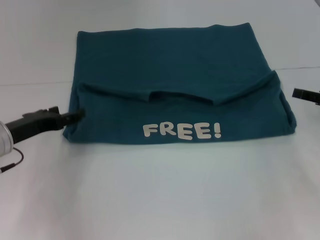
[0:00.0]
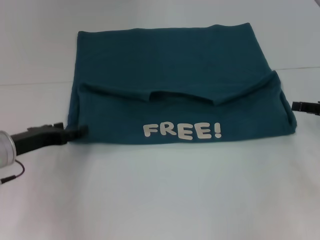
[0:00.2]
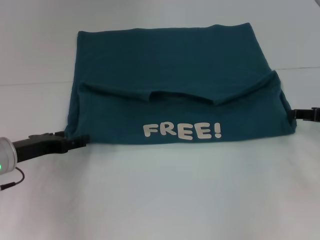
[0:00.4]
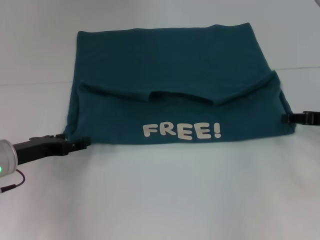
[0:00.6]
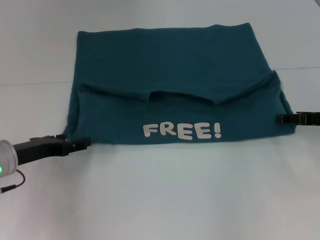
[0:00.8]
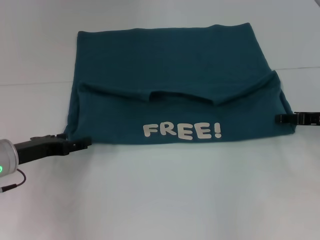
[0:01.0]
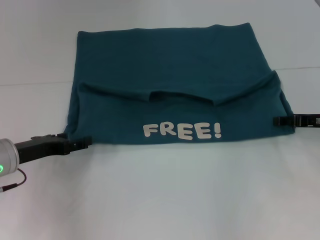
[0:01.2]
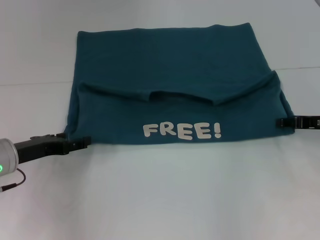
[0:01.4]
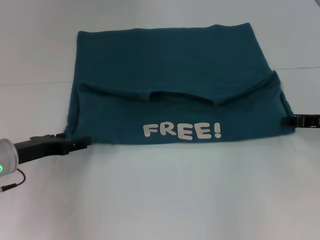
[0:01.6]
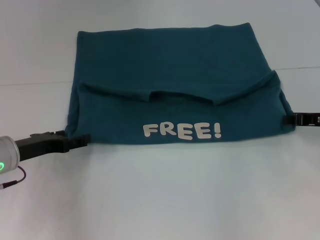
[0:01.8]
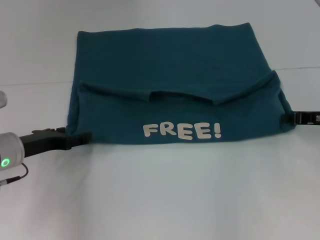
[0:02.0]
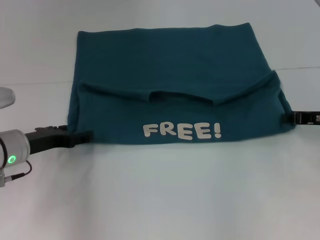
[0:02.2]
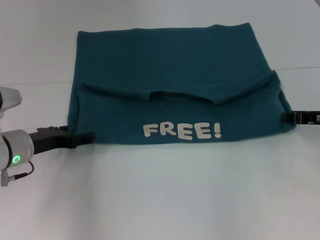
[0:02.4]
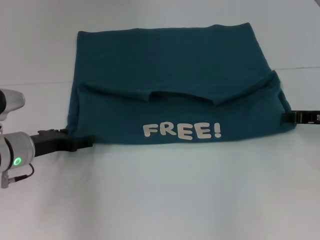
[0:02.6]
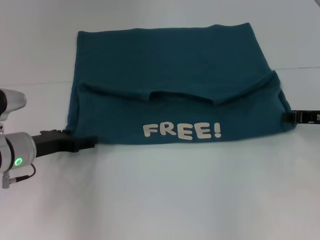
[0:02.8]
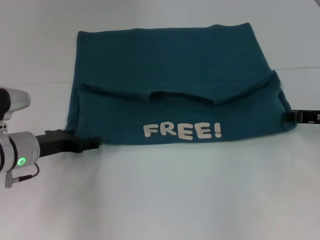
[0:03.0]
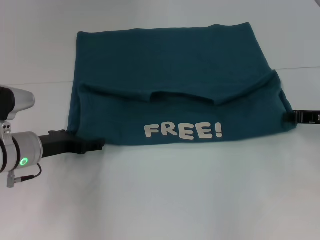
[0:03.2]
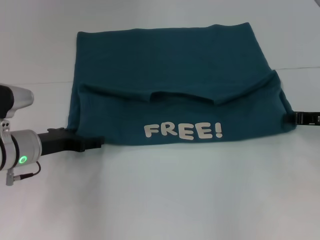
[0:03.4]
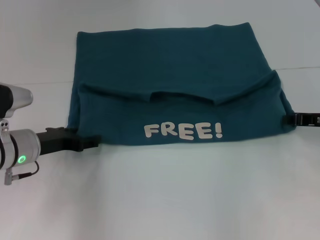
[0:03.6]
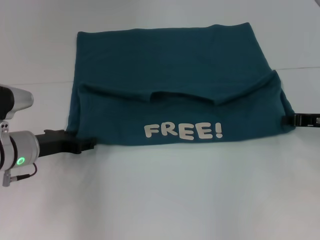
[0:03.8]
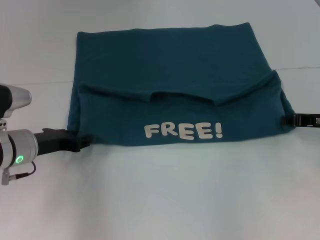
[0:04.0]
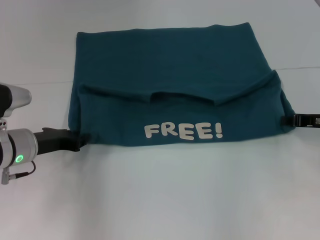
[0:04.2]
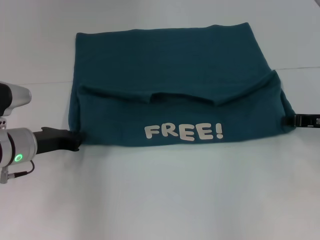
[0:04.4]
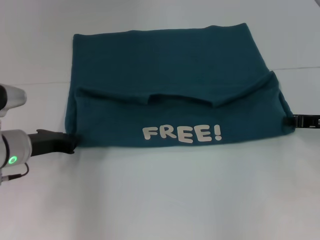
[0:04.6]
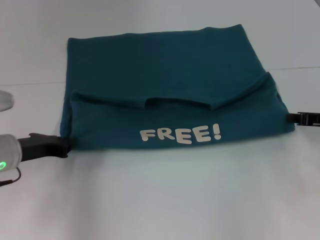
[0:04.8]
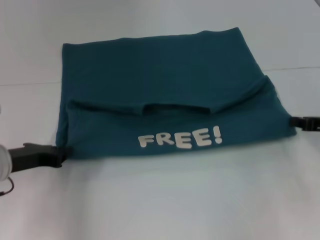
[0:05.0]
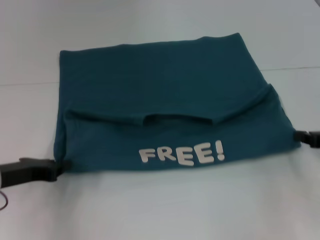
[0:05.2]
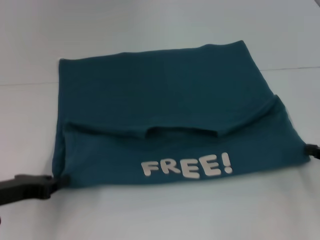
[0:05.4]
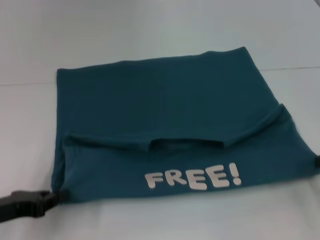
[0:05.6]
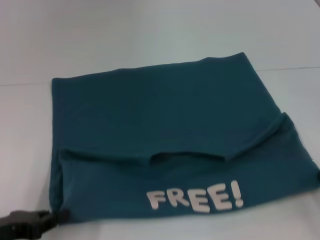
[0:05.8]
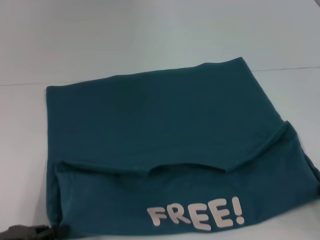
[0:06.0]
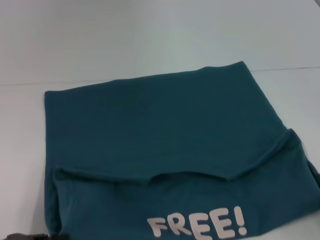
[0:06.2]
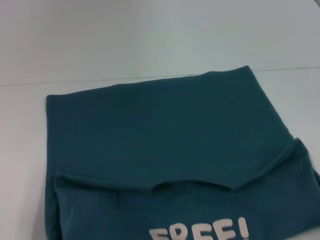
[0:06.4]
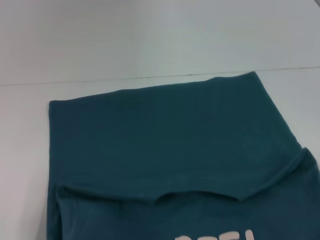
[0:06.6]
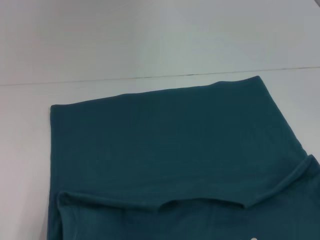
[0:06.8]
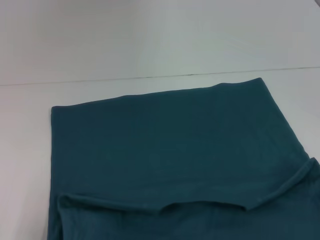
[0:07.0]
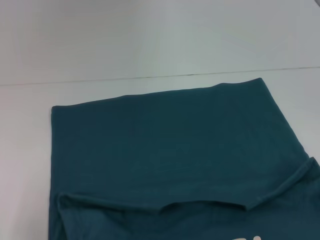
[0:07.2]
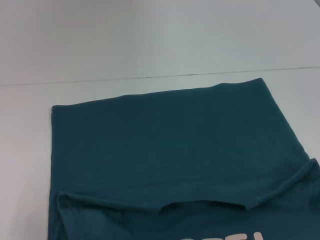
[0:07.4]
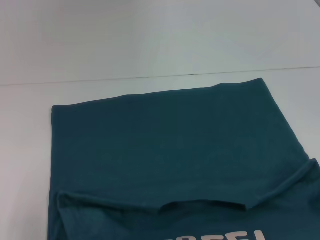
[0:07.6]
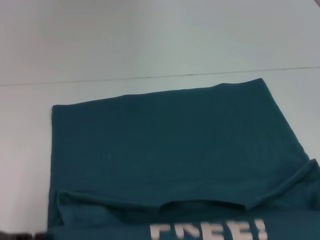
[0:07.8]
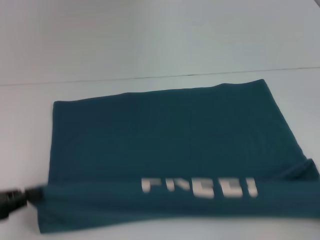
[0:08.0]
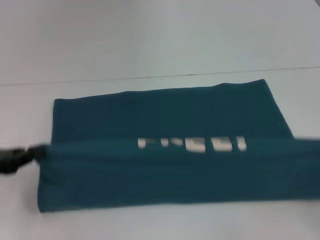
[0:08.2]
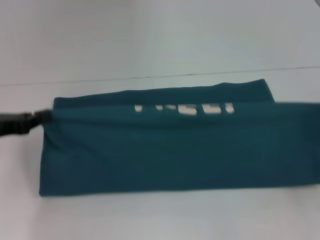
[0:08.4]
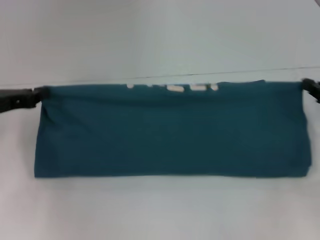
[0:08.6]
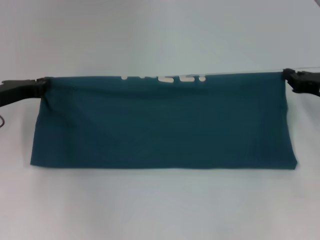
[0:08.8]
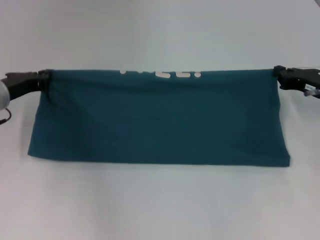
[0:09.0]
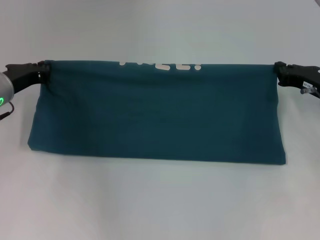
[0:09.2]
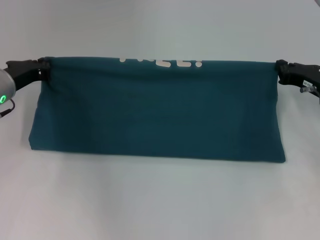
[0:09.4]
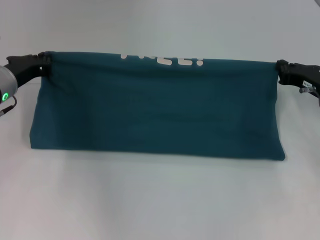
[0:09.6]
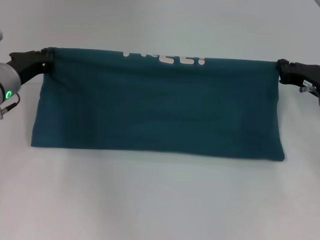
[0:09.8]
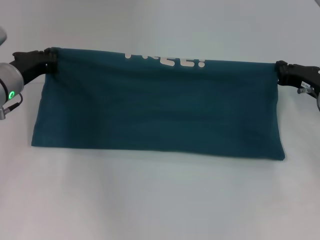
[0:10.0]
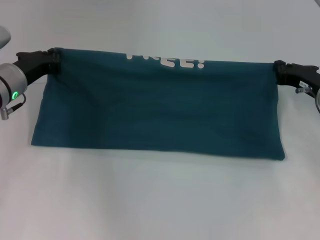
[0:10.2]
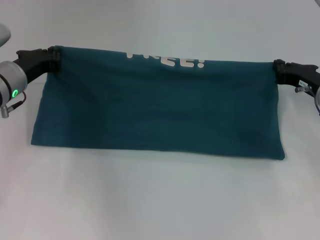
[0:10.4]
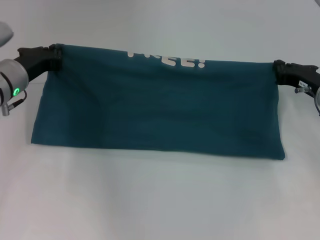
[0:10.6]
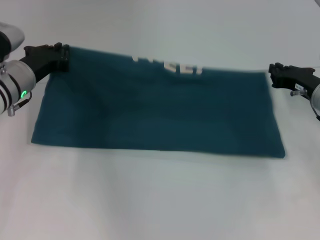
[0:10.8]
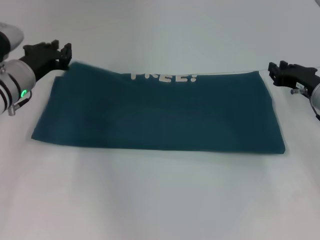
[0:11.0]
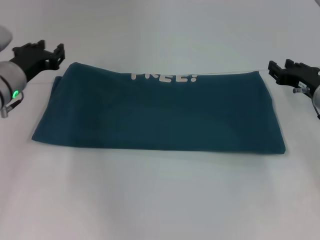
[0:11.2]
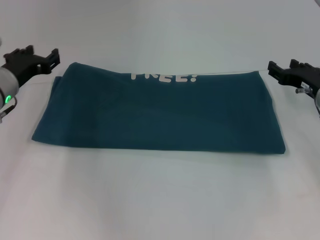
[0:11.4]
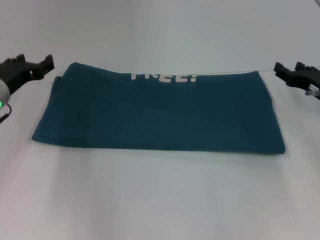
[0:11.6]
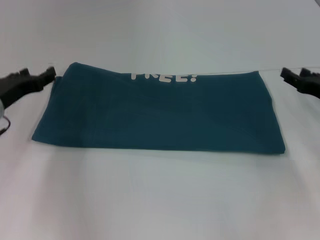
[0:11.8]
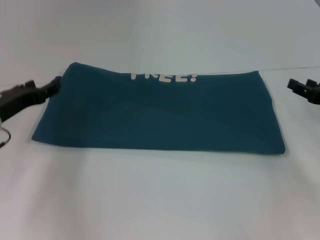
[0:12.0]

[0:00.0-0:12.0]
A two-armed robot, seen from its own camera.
Step, 0:00.0 to 0:05.6: Pull the clothes with your left hand.
Step, 0:00.0 to 0:05.6: Pull the clothes with your right hand.
Step, 0:05.8 to 0:11.0: Fold the clothes to the left.
Step, 0:05.8 to 0:11.0: Fold the clothes to the right.
0:00.0 to 0:01.6: There are only small adjustments of the grippers.
0:01.6 to 0:03.0: The right gripper closes its fingers.
0:03.0 to 0:04.4: The left gripper closes up.
0:04.4 to 0:06.0: The left gripper moves backward and to the left, roughly 20 cm. Meanwhile the right gripper heads backward, covering some 15 cm.
0:06.0 to 0:07.6: The right gripper travels backward by about 10 cm.
0:07.6 to 0:09.0: Both grippers travel together forward, roughly 25 cm.
0:09.0 to 0:10.4: The grippers move only a little.
0:10.4 to 0:12.0: The left gripper heads backward, covering roughly 5 cm, and opens up; the right gripper goes approximately 10 cm to the right and backward, and opens up.

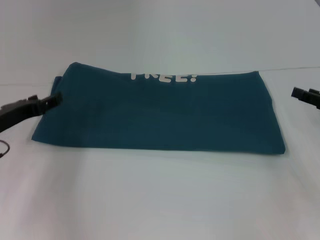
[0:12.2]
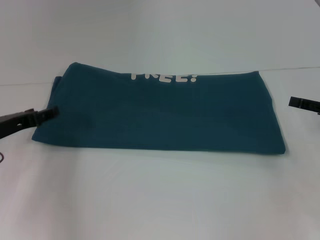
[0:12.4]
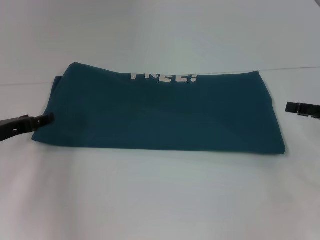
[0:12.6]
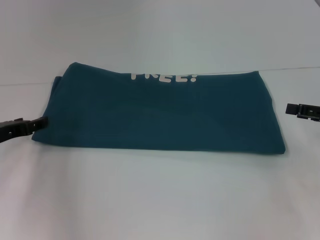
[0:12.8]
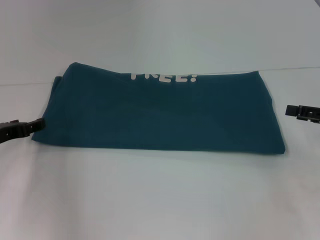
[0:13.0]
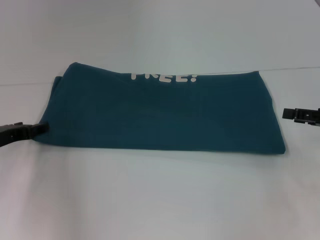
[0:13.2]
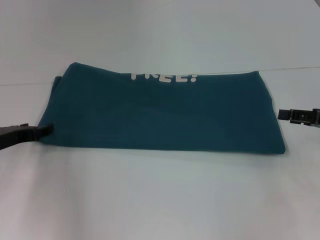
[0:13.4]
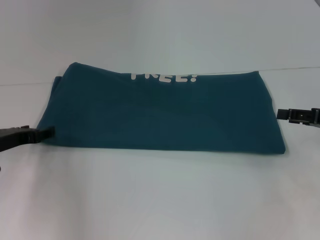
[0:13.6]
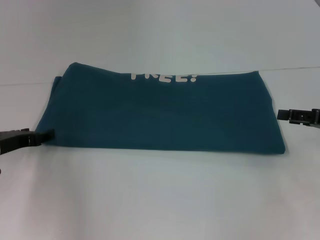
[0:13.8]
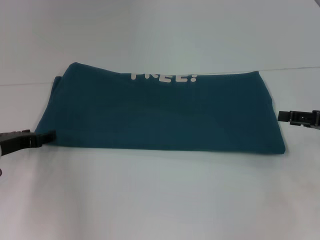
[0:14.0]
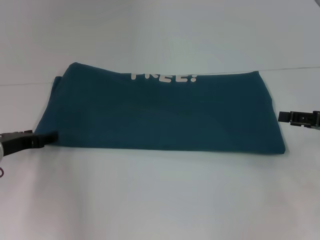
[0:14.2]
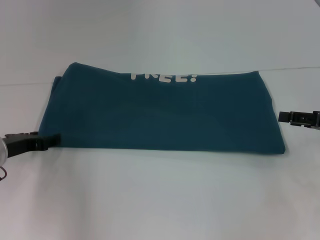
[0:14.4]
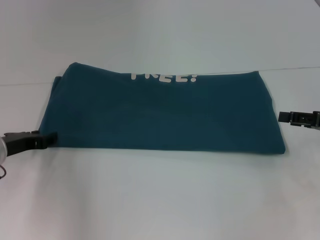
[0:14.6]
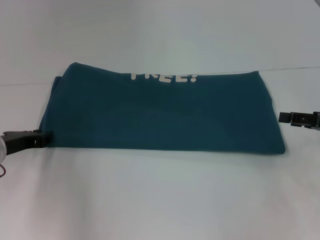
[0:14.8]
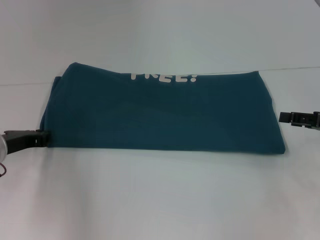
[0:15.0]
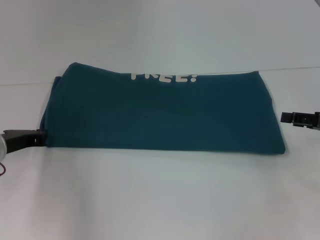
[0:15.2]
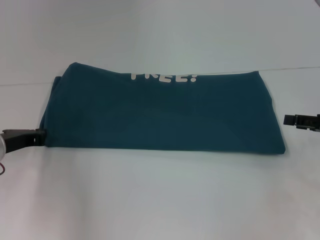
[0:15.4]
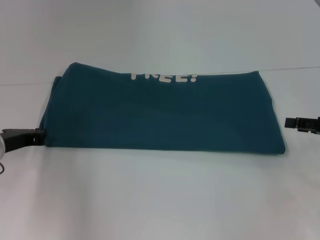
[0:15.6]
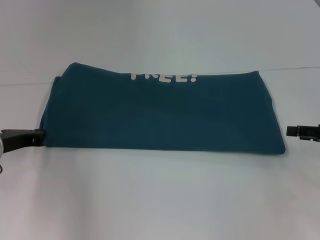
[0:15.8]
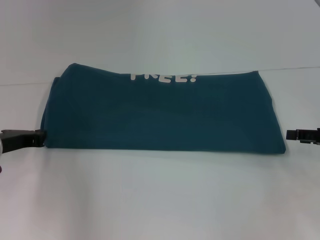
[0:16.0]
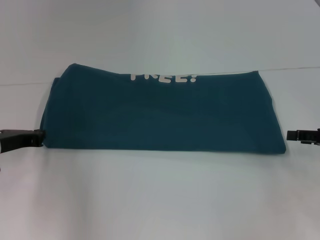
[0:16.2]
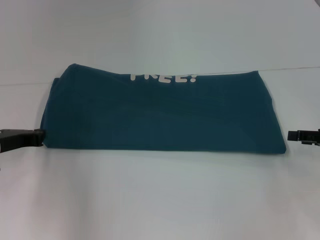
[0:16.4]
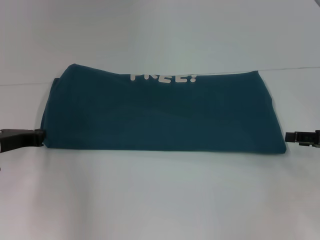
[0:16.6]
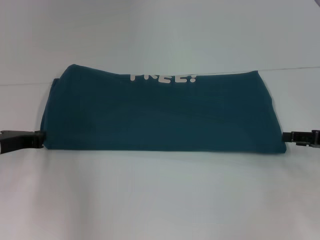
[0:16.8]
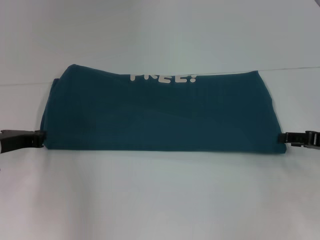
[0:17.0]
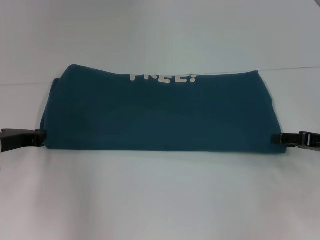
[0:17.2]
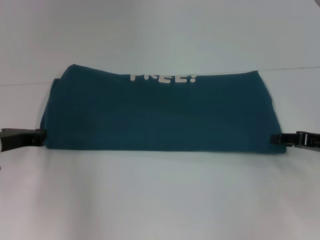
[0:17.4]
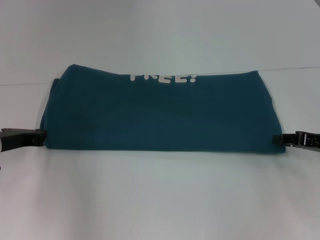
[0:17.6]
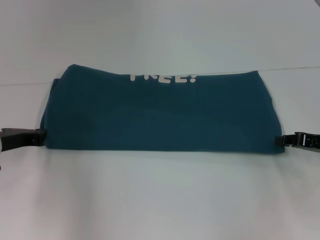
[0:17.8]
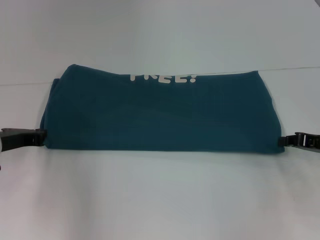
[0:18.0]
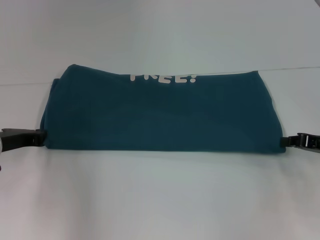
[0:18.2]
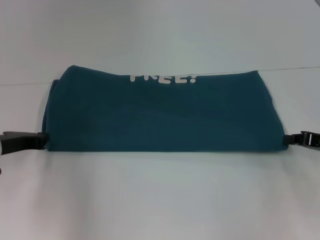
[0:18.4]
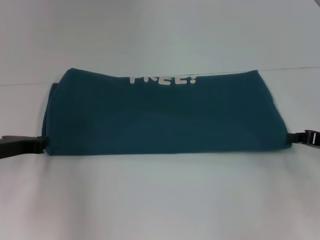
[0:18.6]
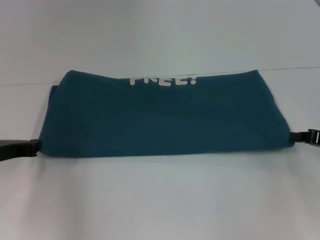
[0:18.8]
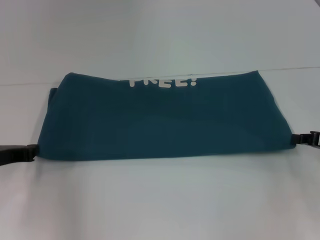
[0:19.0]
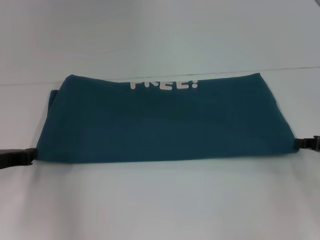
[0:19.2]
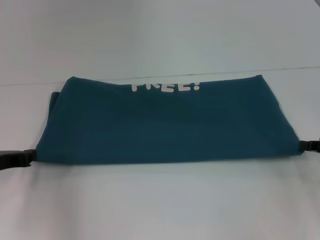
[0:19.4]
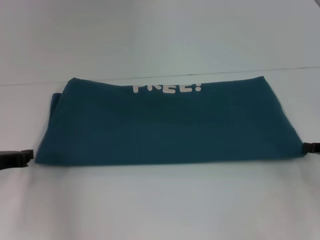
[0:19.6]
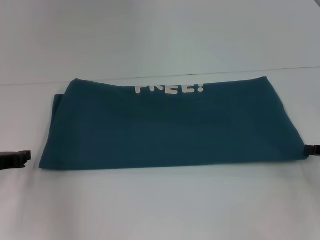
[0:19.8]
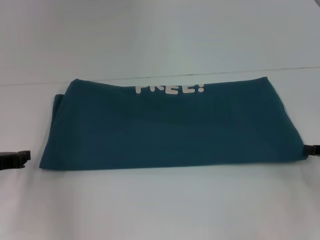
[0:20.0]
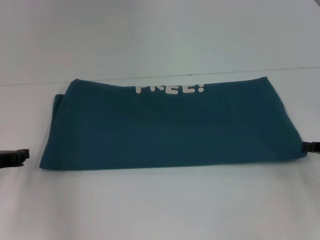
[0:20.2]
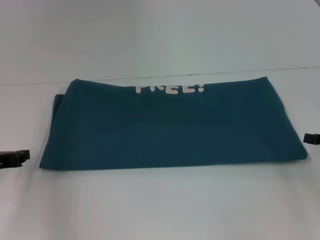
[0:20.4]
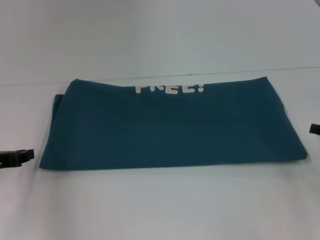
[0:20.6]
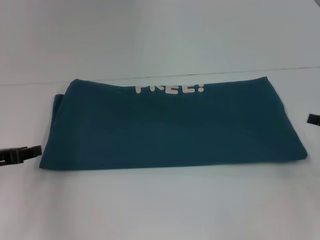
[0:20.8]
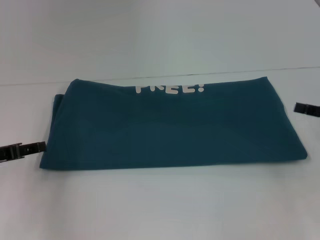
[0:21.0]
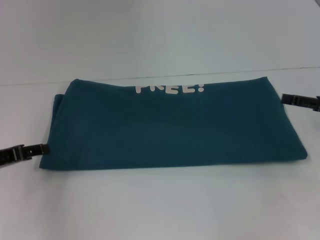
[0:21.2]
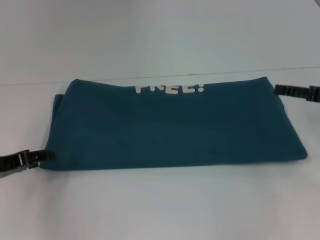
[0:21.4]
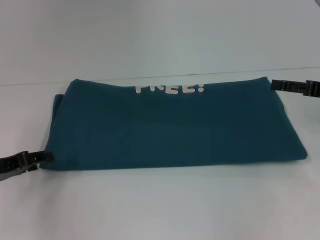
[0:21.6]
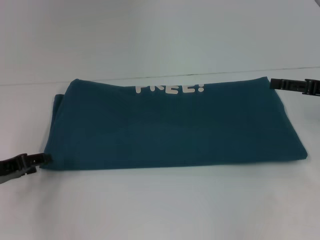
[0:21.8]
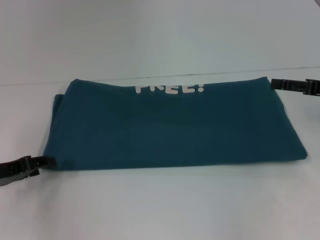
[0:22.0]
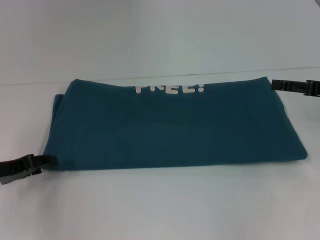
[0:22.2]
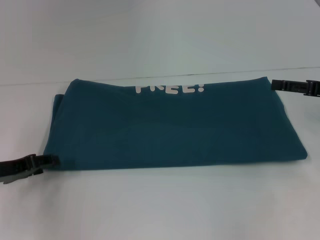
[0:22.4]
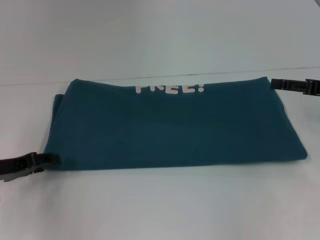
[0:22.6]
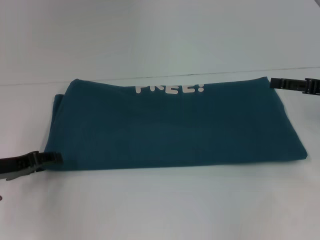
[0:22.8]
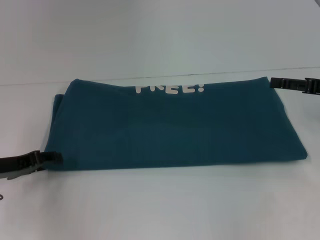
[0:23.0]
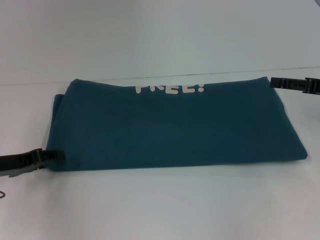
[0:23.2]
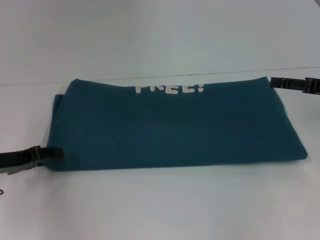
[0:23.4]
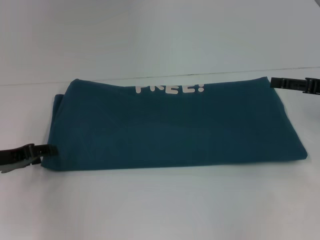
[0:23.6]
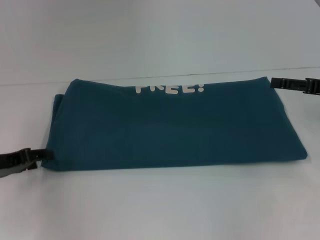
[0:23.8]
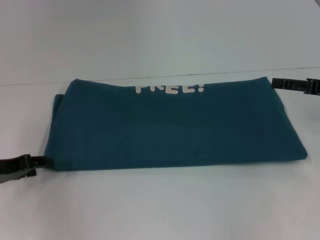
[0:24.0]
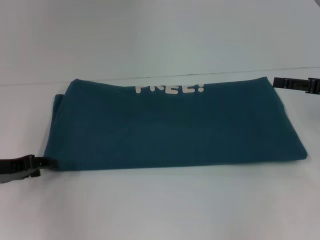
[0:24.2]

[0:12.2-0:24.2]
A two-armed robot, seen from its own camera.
Step, 0:12.2 to 0:20.4: Pull the clothes with your left hand.
Step, 0:12.2 to 0:20.4: Pull the clothes with your right hand.
0:15.2 to 0:16.6: The grippers stay close to where they were, moving slightly.
0:16.6 to 0:18.2: The right gripper closes up.
0:18.2 to 0:19.8: The left gripper moves roughly 5 cm.
0:19.8 to 0:21.2: The left gripper opens; the right gripper changes place by some 5 cm, and opens up.
0:21.2 to 0:22.6: The grippers stay close to where they were, moving slightly.
